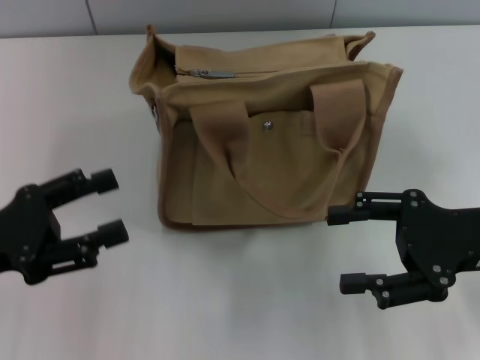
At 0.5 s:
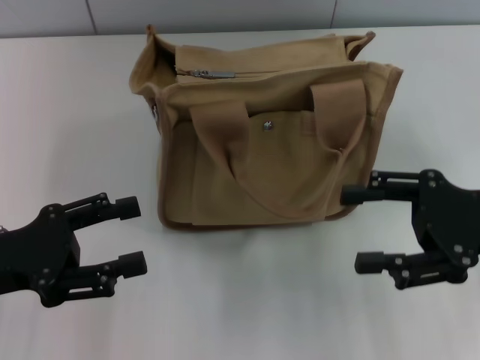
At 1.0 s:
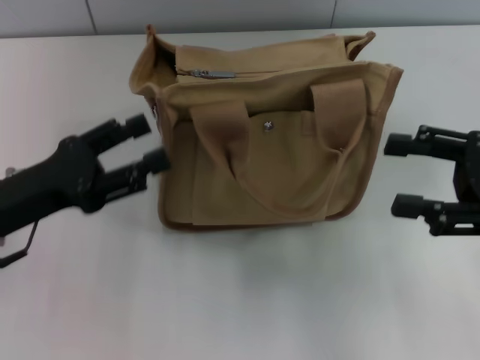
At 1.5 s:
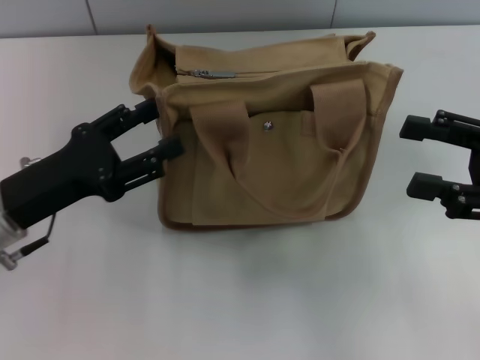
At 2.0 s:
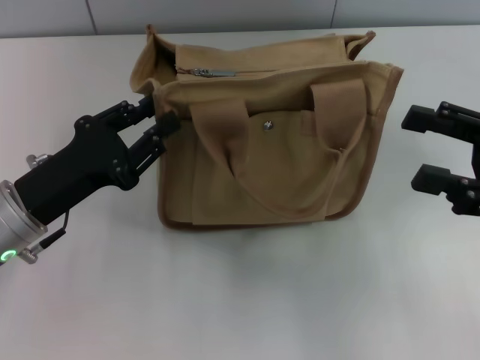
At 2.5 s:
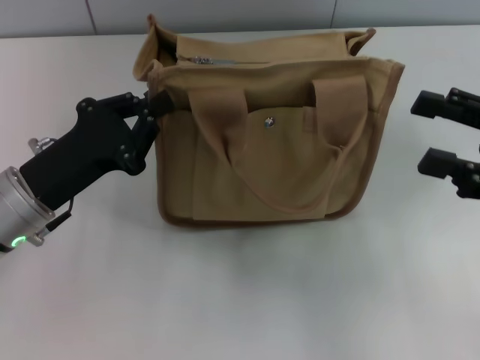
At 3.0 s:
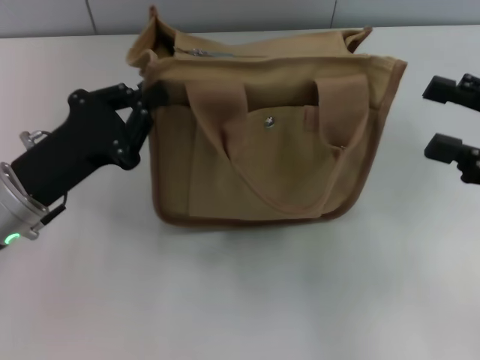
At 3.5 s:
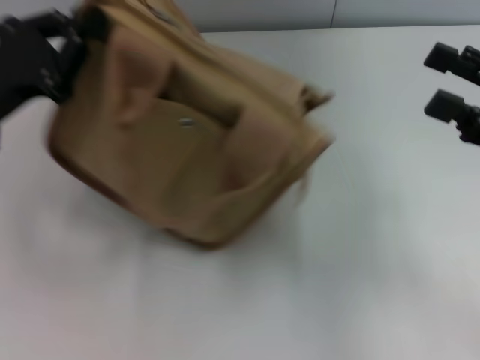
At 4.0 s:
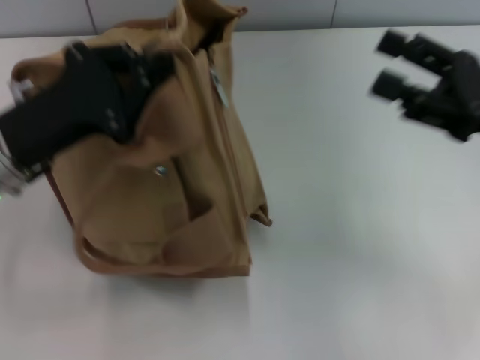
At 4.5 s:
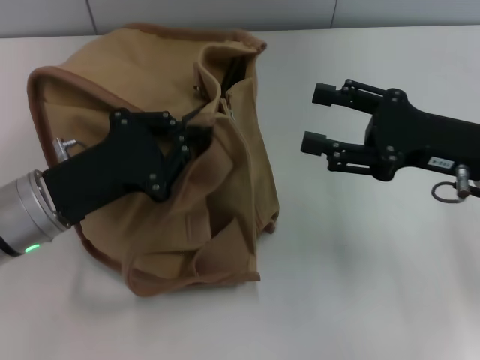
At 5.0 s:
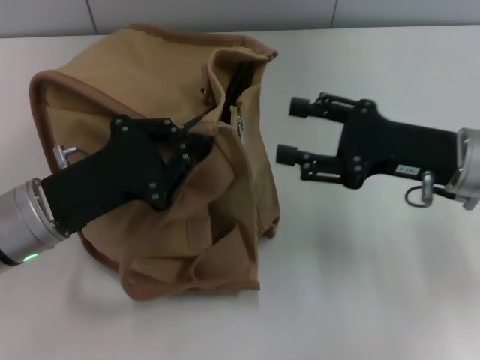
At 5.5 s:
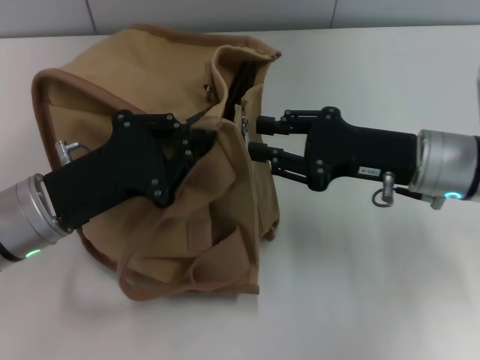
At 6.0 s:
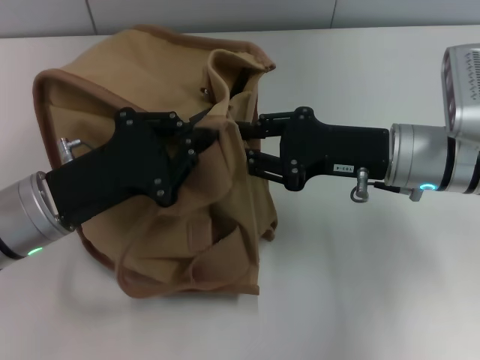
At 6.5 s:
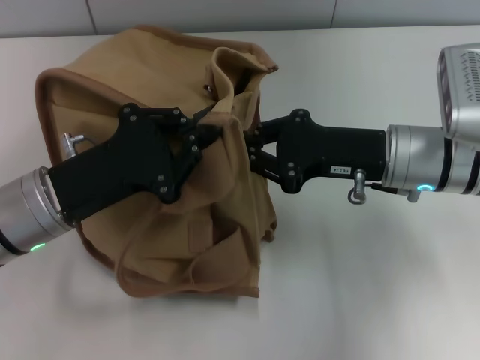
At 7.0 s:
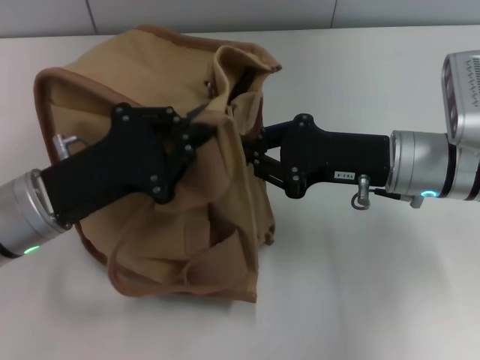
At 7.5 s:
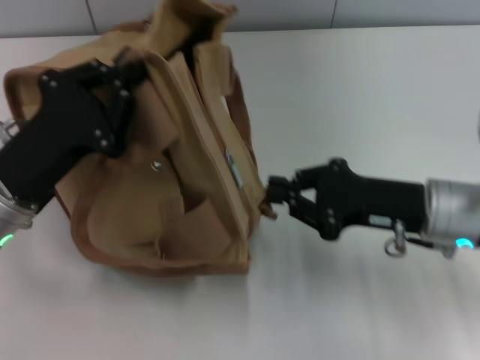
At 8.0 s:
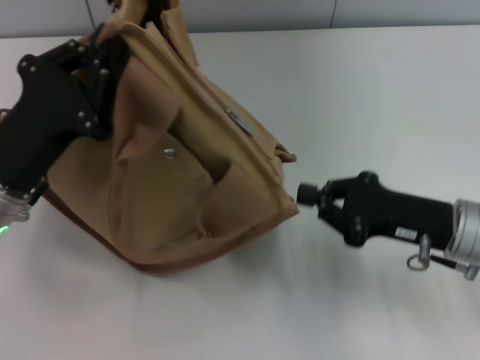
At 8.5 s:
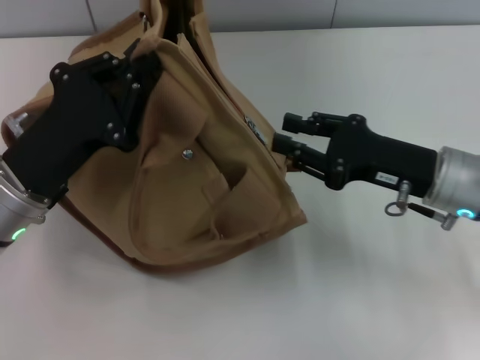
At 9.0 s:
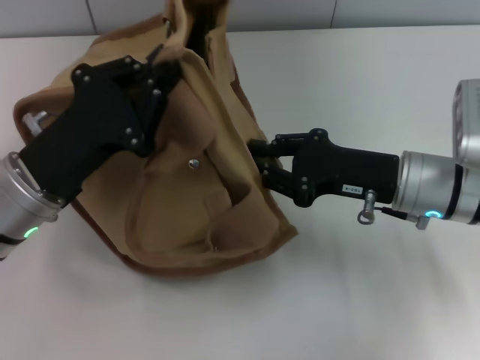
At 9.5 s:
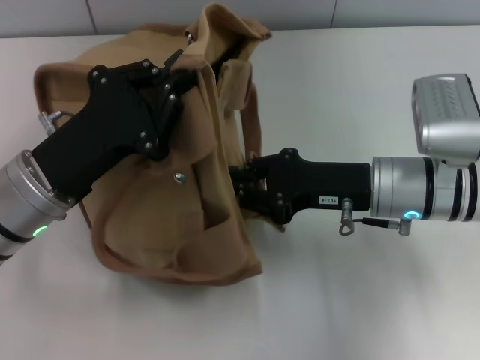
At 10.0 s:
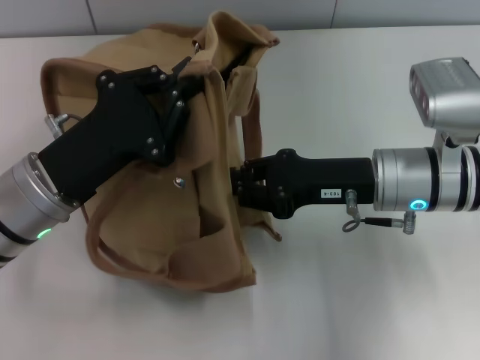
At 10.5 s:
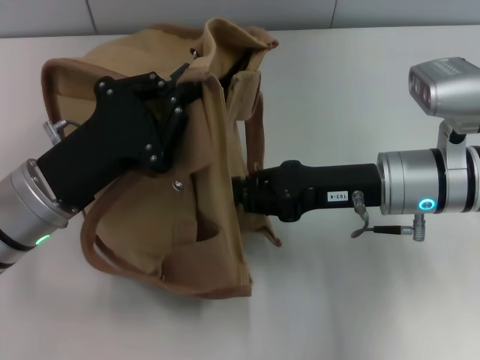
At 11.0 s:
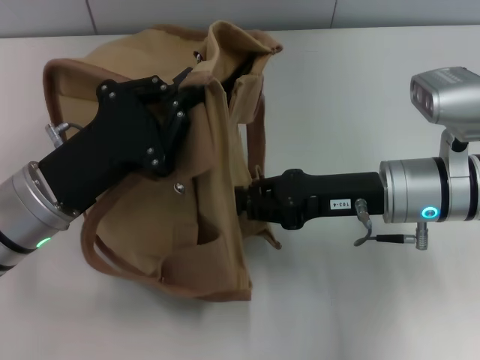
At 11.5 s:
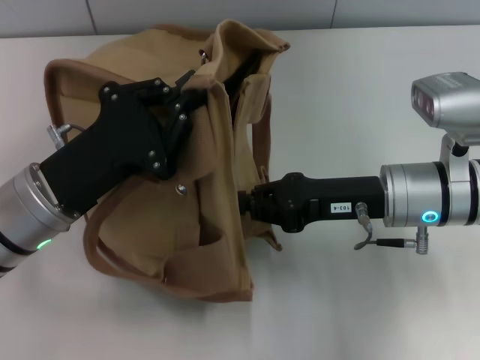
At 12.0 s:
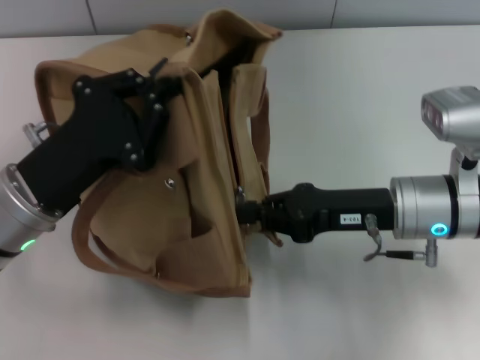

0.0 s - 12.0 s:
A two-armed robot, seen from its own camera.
0.0 s - 2.0 s: The left gripper moves to the right, about 5 cm, and closes up.
2.0 s - 4.0 s: The left gripper shifts by some 5 cm, and closes up.
4.0 s - 6.0 s: The right gripper moves to the left, approximately 10 cm.
6.0 s - 8.0 s: The right gripper heads backward and to the right, covering approximately 10 cm, and closes up.
8.0 s - 10.0 s: The right gripper goes some 5 cm to the left.

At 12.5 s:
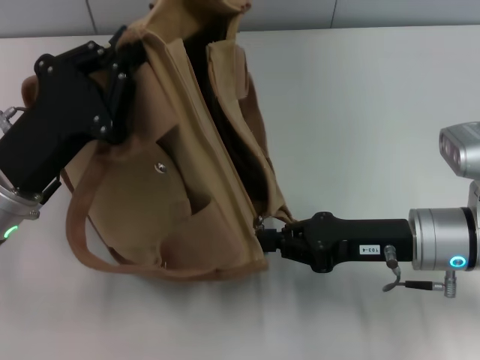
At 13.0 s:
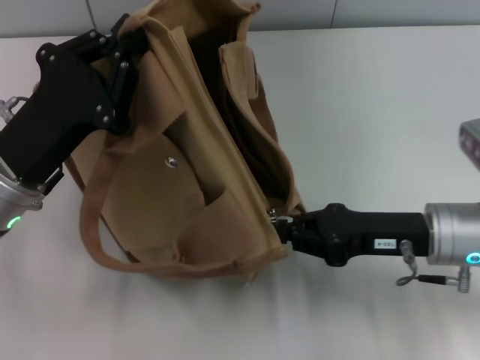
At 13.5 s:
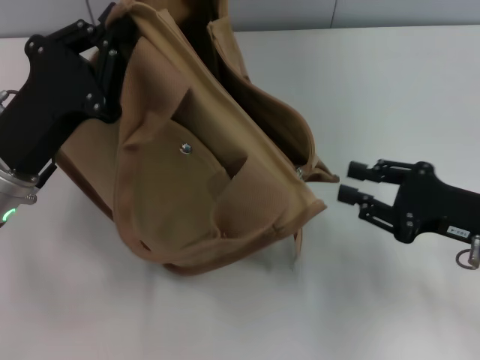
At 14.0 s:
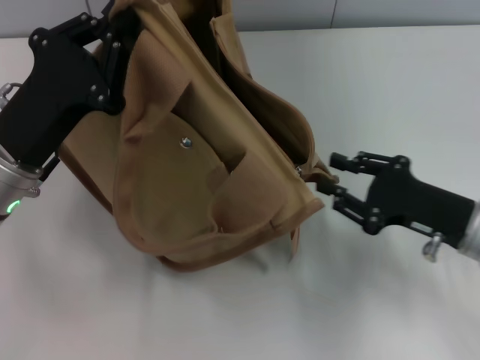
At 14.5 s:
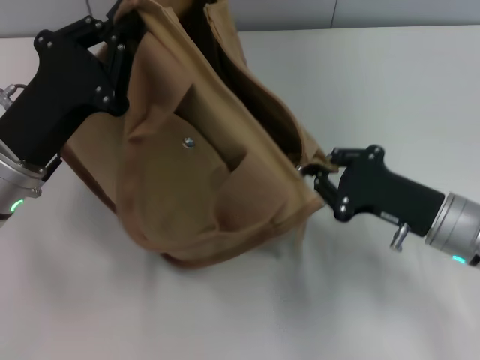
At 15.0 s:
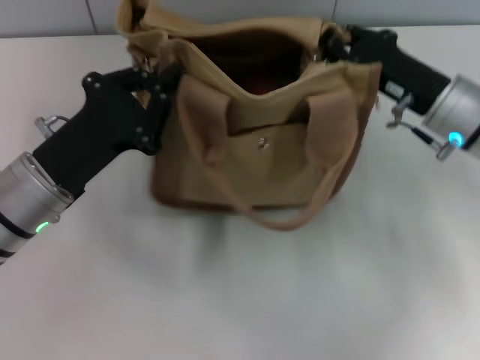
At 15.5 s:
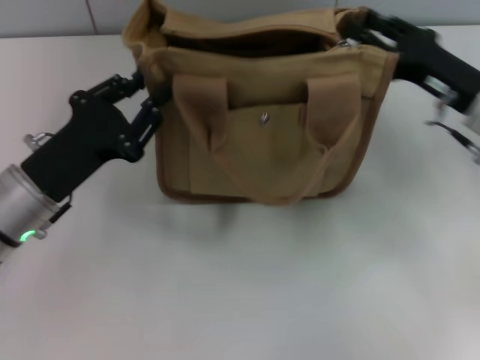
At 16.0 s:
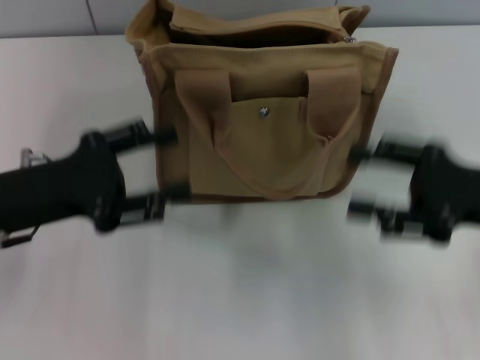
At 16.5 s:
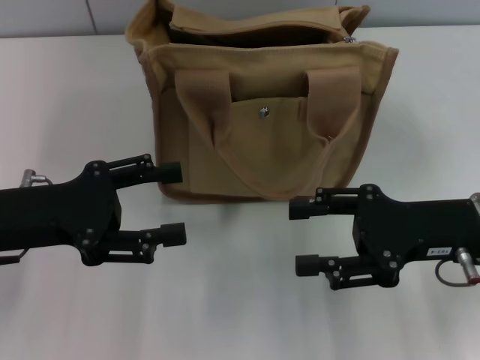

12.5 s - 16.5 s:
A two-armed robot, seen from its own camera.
Step, 13.5 s - 15.5 s: Grab the bag with your left hand.
12.5 s - 14.5 s: The right gripper moves some 10 cm to the right and comes back.
14.5 s - 16.5 s: The left gripper opens its fingers, while the right gripper moves upward, roughly 5 cm, travels forward and back again, approximately 10 cm each way, and opens its fingers.

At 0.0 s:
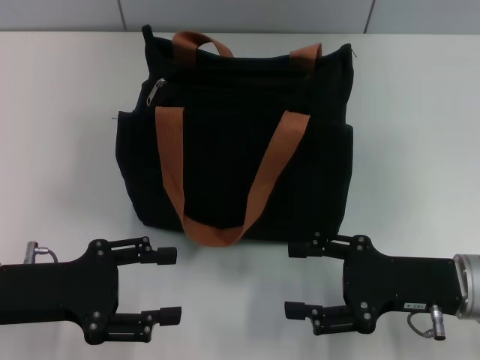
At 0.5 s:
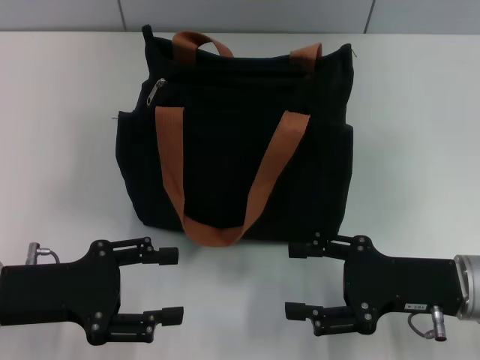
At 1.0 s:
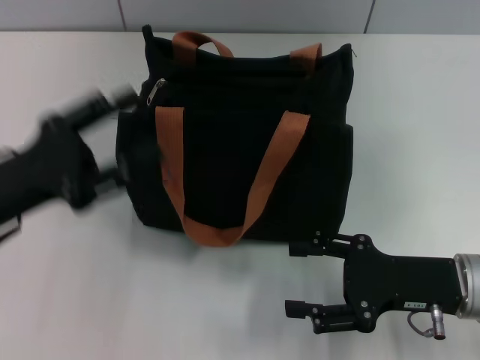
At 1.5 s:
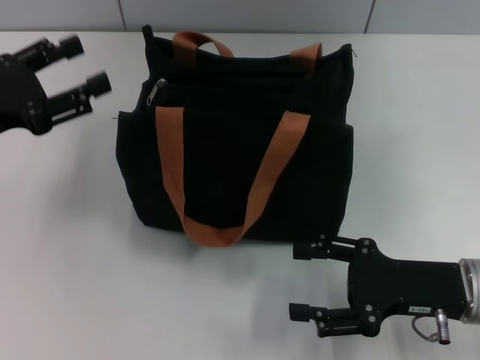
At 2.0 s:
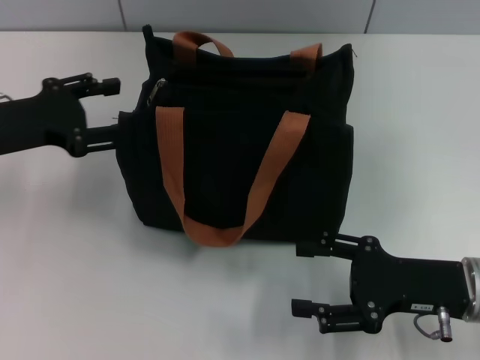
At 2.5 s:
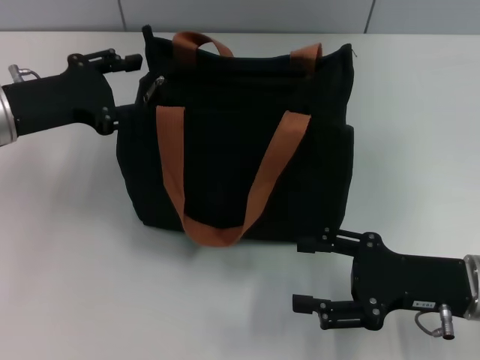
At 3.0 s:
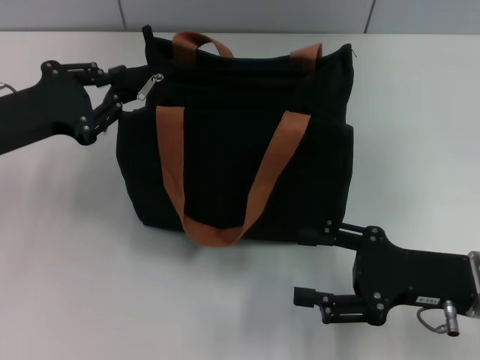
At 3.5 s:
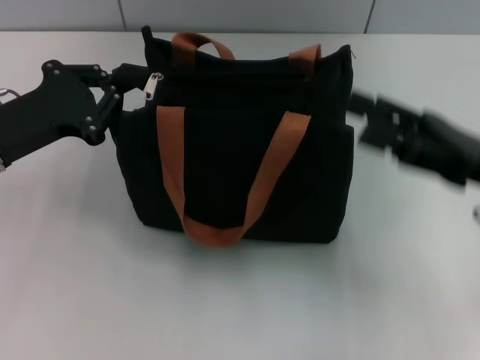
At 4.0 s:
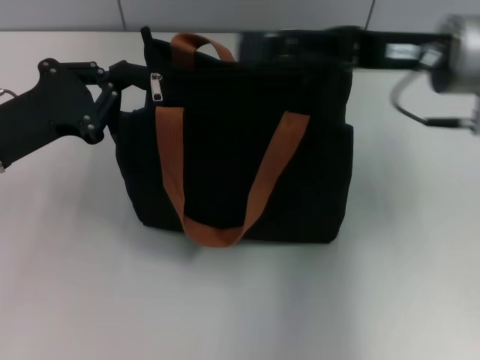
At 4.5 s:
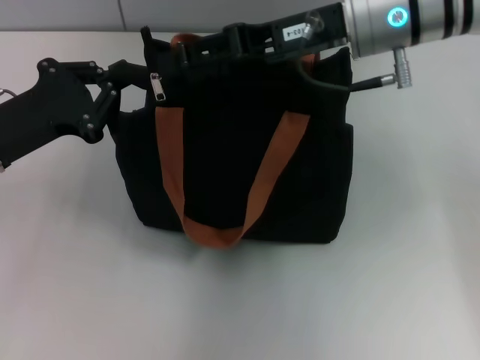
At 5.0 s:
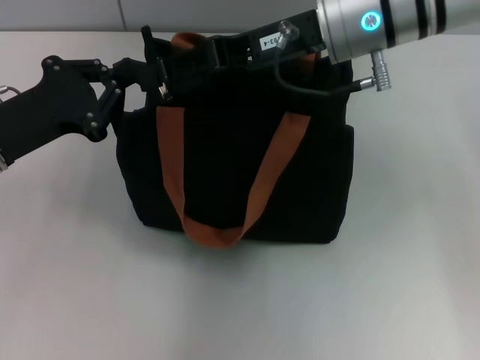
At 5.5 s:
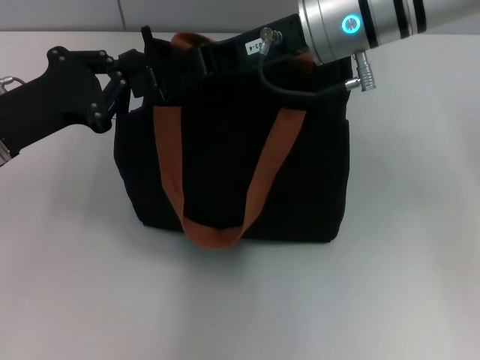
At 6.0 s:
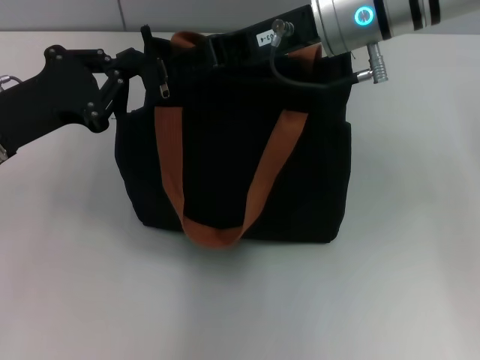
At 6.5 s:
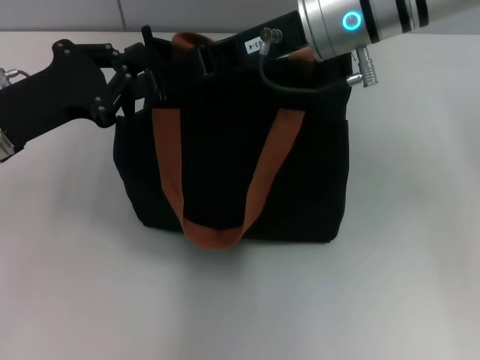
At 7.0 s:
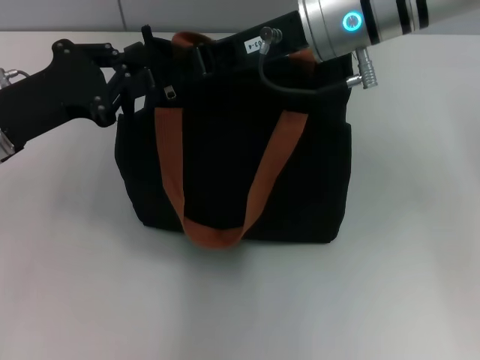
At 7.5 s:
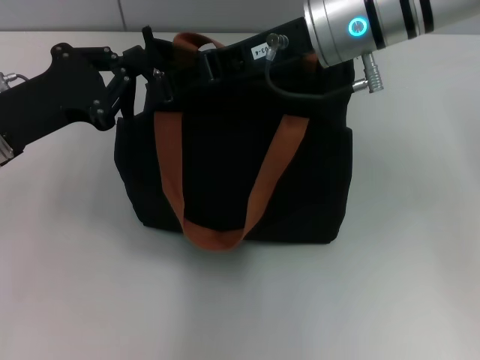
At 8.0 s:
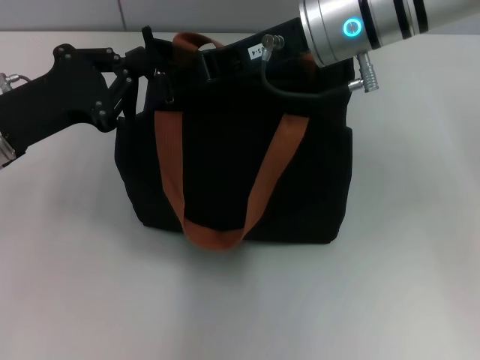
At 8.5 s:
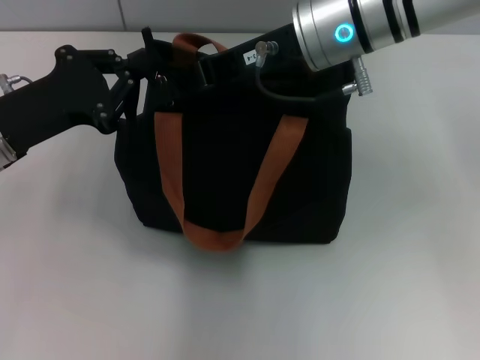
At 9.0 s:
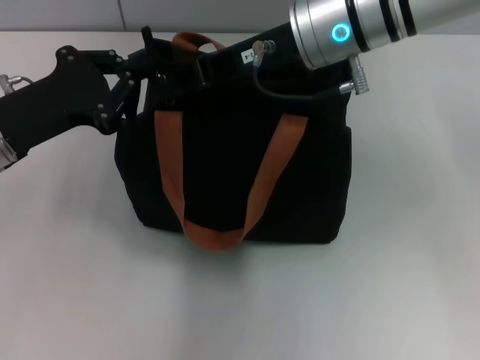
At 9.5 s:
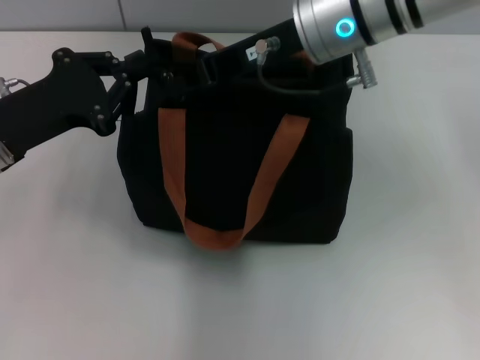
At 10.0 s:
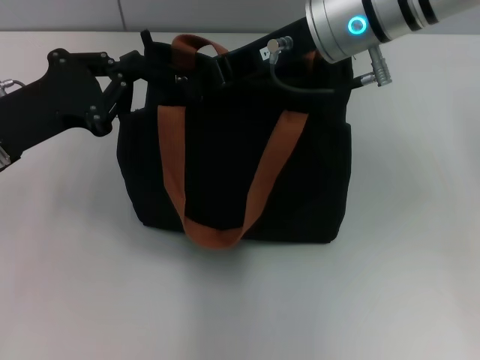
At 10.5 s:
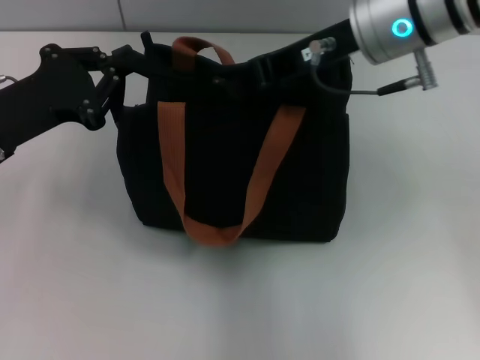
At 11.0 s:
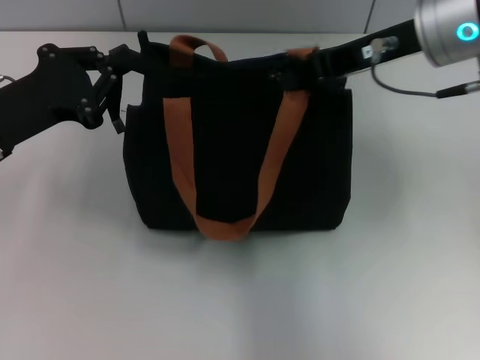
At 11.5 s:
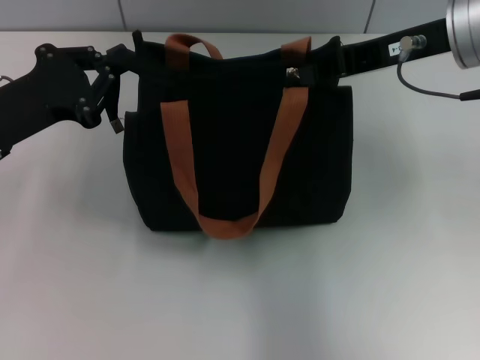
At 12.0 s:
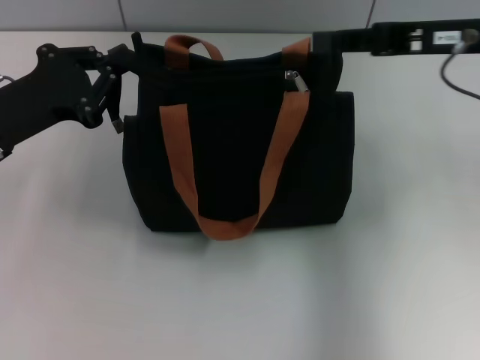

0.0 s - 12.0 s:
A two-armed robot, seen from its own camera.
Step, 0.0 s - 11.5 s: Pull up the zipper with your right hand.
0.0 s - 2.0 s: The left gripper travels forward and upward by roughly 10 cm.
2.0 s - 4.0 s: The left gripper closes its fingers; the right gripper goes some 20 cm upward and forward.
4.0 s - 6.0 s: The right gripper shifts some 10 cm to the left.
6.0 s - 8.0 s: The right gripper closes up.
8.0 s - 10.0 s: There are only small adjustments of the grippers.
10.0 s - 12.0 s: The right gripper goes about 15 cm to the right.
